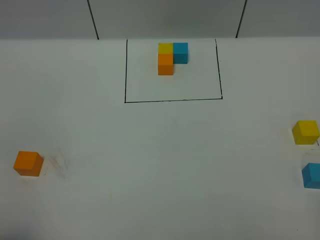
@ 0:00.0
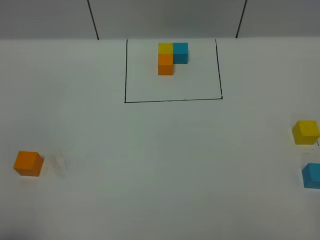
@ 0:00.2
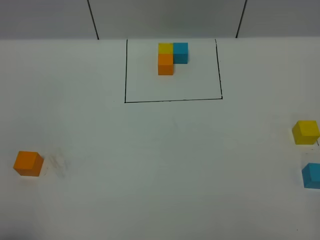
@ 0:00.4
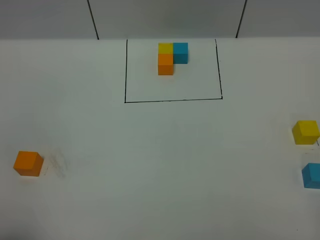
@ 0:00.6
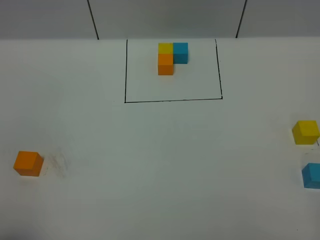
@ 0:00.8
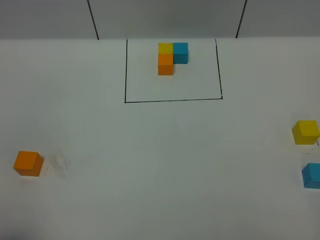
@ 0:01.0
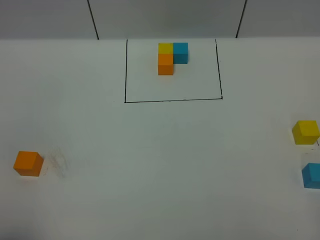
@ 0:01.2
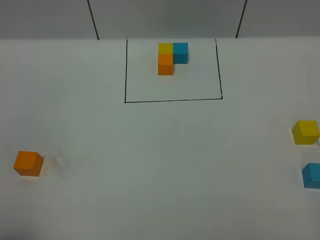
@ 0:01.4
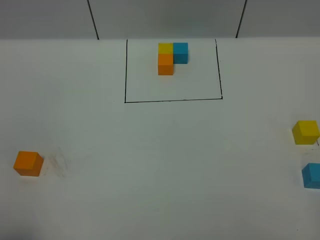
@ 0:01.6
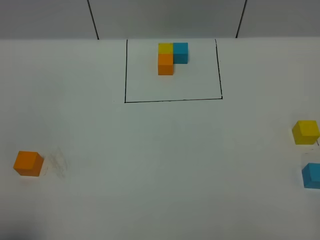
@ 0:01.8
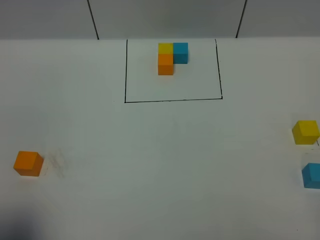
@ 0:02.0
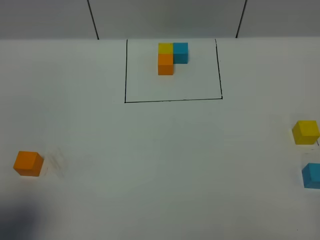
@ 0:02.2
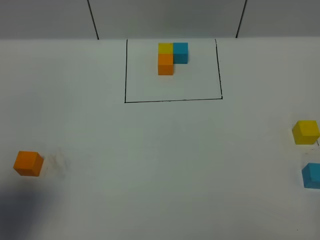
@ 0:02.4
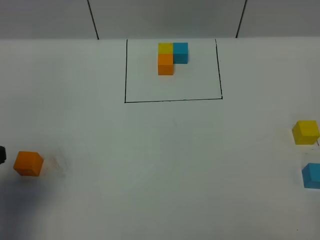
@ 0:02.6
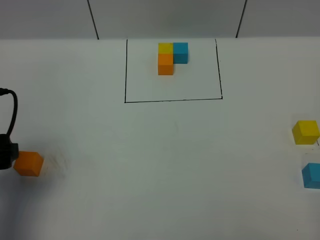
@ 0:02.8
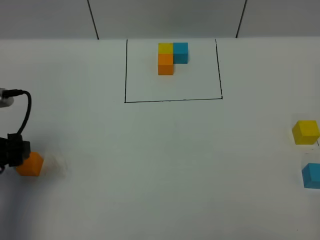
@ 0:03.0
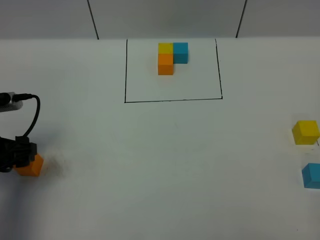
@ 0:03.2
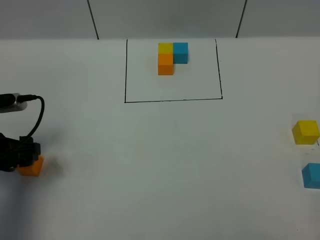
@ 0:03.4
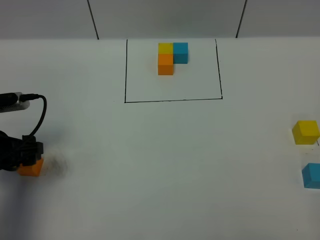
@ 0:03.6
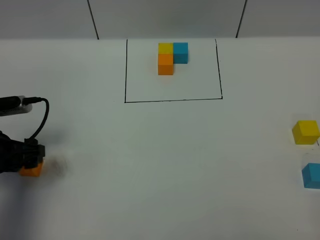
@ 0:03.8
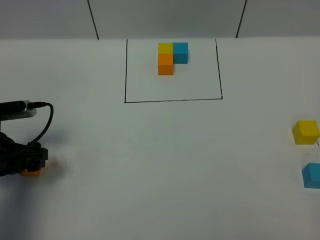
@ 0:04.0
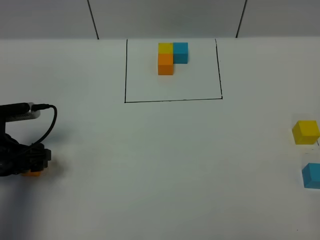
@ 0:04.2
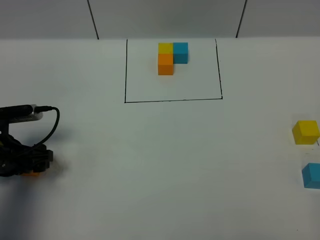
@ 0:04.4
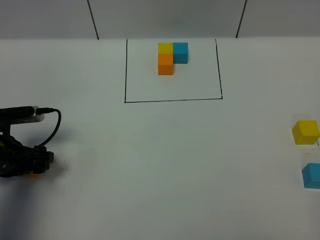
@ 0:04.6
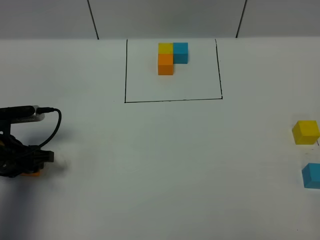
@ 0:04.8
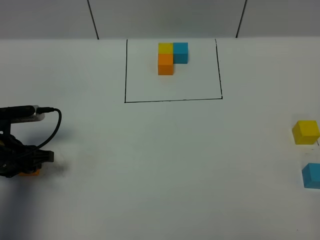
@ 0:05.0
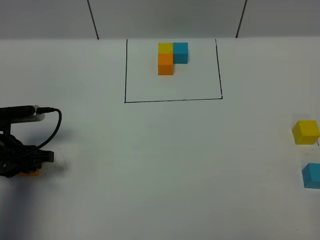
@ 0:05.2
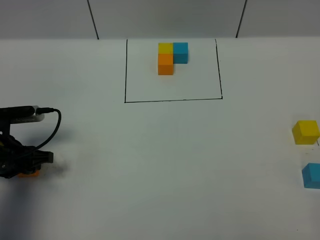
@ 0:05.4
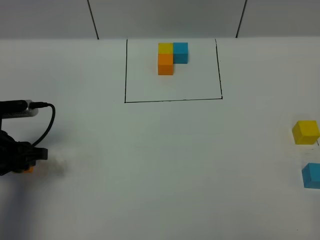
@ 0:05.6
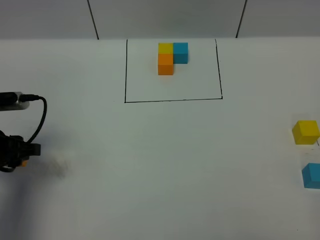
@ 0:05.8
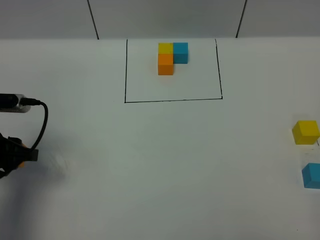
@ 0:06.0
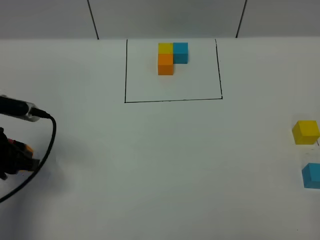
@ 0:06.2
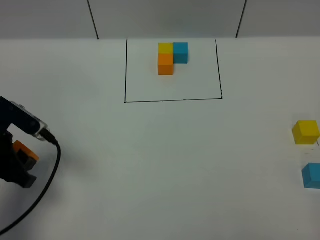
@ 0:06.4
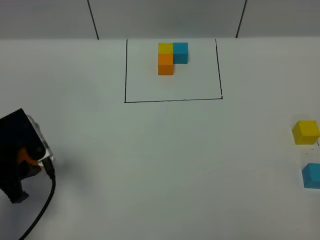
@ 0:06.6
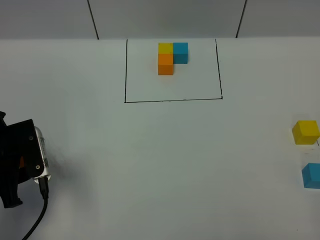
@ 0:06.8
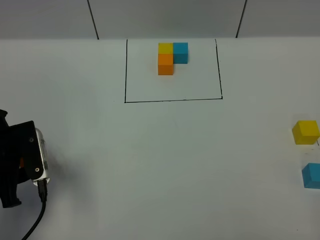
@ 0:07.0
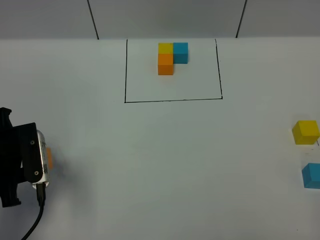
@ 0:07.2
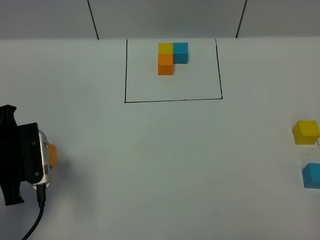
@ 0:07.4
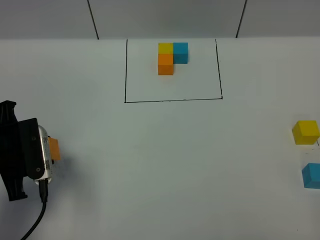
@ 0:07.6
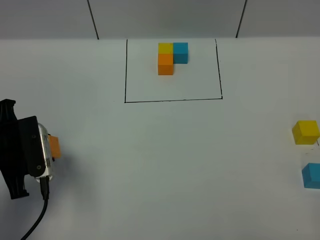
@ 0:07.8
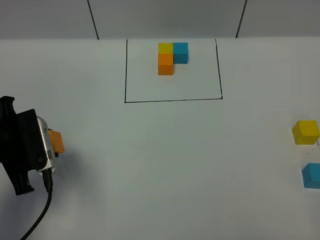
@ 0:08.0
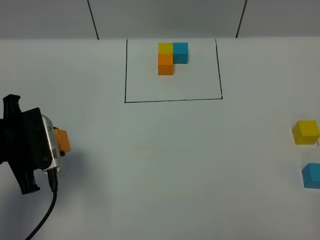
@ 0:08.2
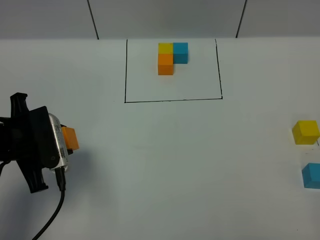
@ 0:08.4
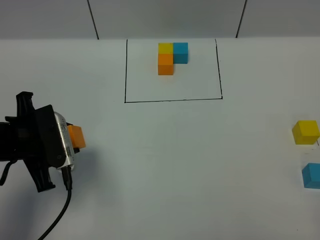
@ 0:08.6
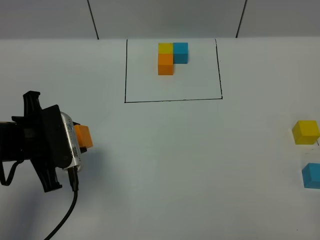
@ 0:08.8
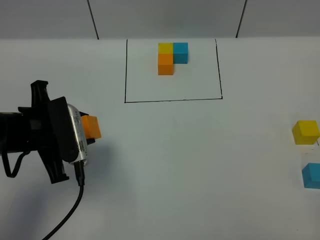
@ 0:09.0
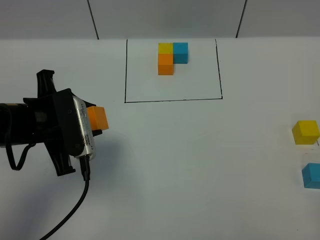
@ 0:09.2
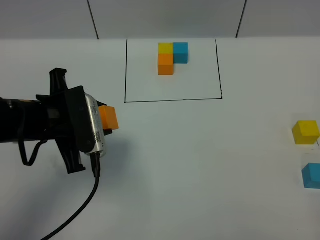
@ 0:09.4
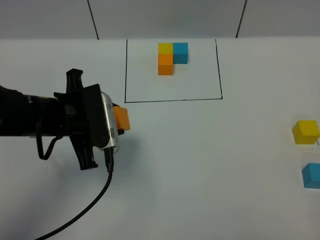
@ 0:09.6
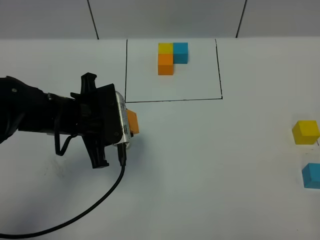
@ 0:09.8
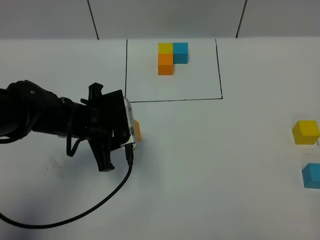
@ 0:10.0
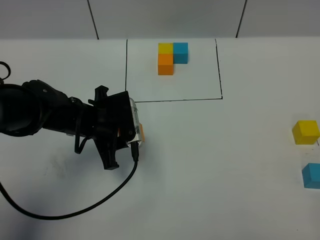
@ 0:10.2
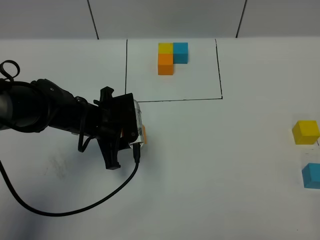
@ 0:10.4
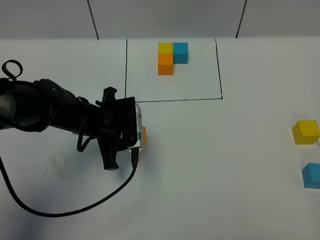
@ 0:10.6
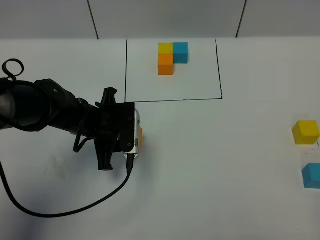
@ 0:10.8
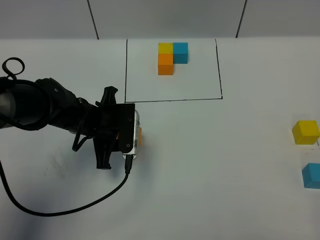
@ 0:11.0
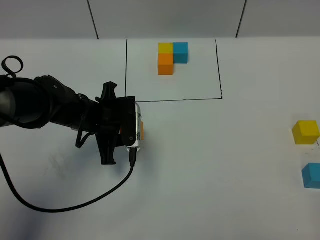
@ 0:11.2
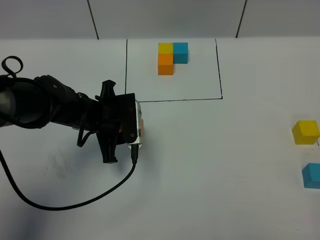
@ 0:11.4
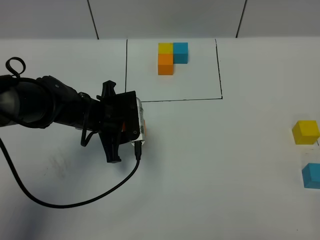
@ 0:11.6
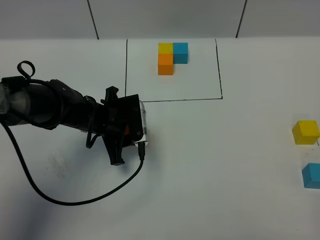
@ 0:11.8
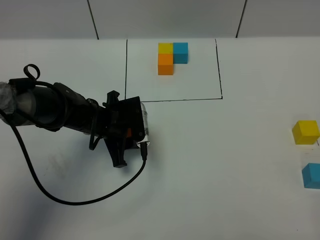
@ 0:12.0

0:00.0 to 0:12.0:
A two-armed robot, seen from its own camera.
Task of the whole recording: According to the building block template in front, assemble the scattered blocks together.
0:01.6 to 0:03.0: The left gripper heads forward and downward, covering approximately 25 cm.
0:03.0 to 0:04.4: The left gripper moves downward, roughly 5 cm.
0:04.4 to 0:06.0: The left gripper moves upward, roughly 5 cm, and closes up.
0:07.6 to 0:09.0: The left gripper shifts about 5 cm to the right.
0:09.0 to 0:10.4: The left gripper moves downward, forward and to the right, roughly 15 cm.
0:10.4 to 0:12.0: There are only small adjustments of the grippers.

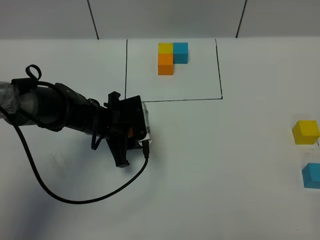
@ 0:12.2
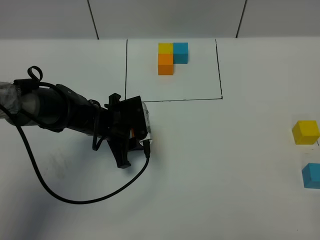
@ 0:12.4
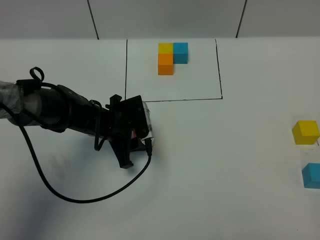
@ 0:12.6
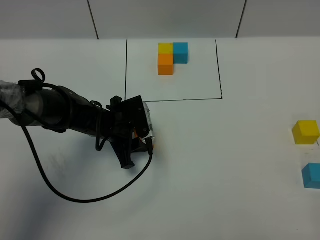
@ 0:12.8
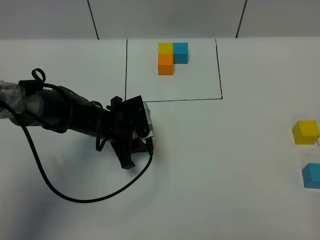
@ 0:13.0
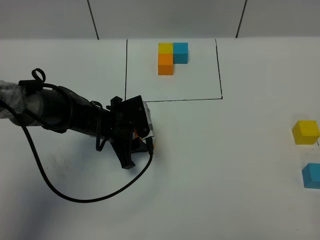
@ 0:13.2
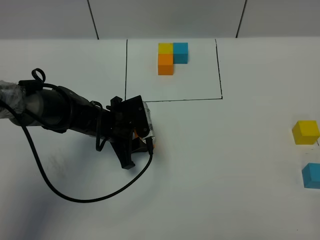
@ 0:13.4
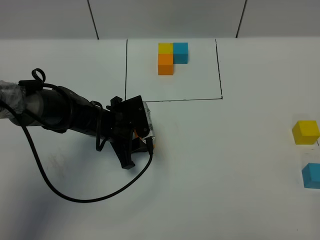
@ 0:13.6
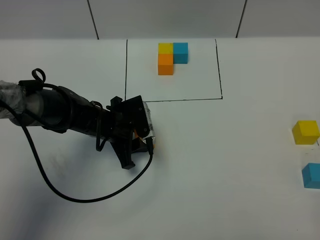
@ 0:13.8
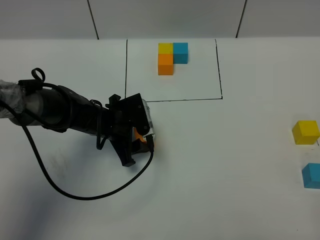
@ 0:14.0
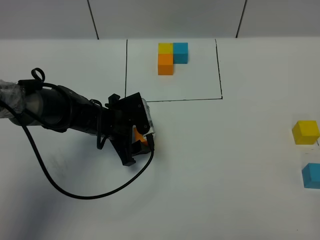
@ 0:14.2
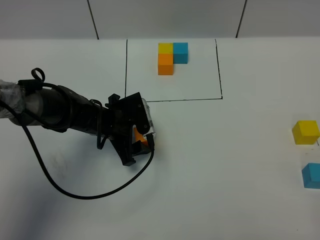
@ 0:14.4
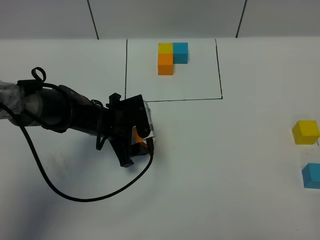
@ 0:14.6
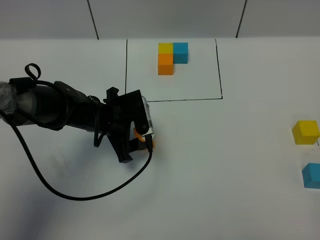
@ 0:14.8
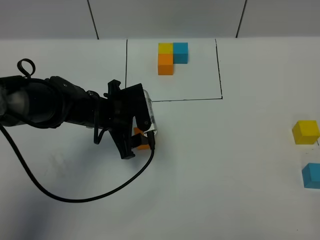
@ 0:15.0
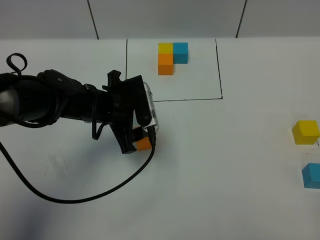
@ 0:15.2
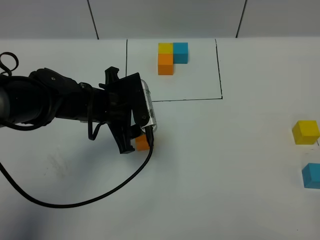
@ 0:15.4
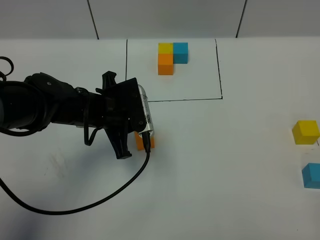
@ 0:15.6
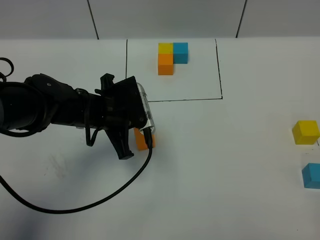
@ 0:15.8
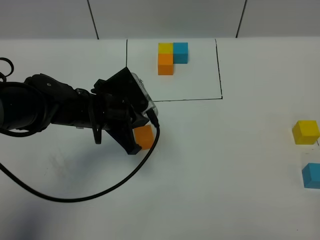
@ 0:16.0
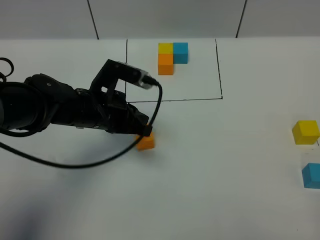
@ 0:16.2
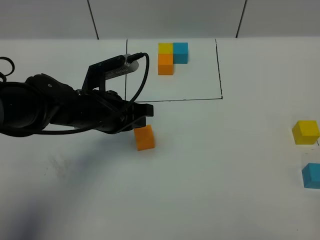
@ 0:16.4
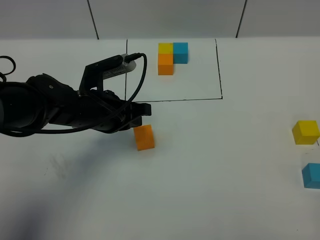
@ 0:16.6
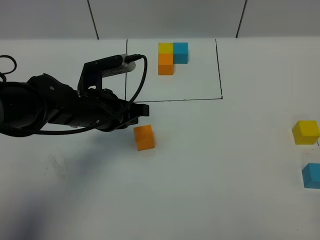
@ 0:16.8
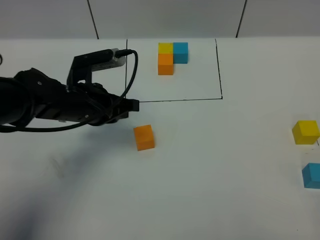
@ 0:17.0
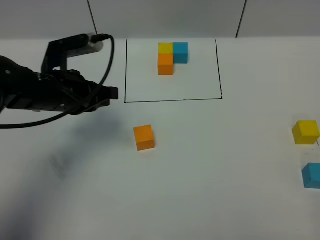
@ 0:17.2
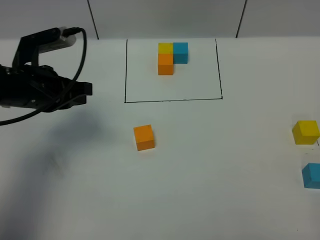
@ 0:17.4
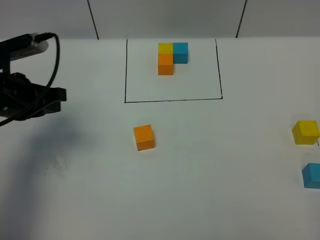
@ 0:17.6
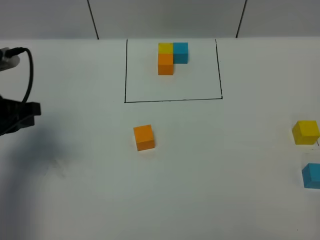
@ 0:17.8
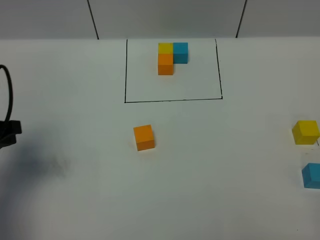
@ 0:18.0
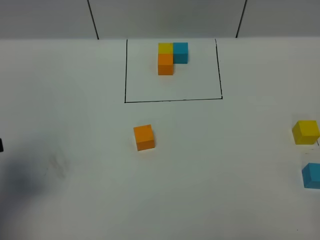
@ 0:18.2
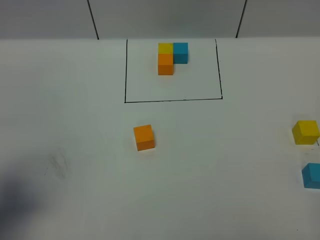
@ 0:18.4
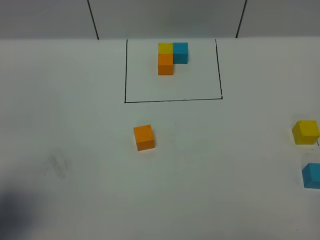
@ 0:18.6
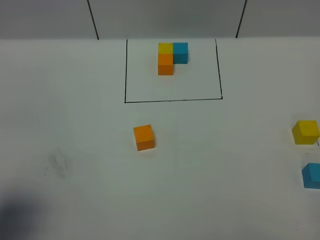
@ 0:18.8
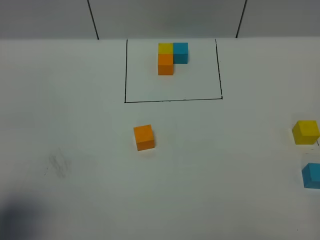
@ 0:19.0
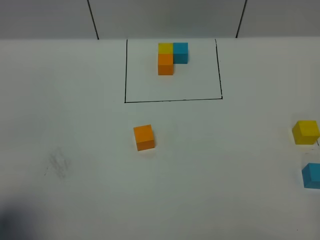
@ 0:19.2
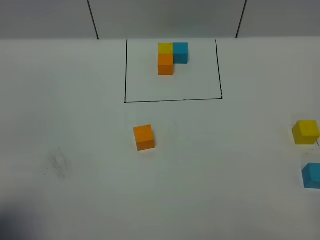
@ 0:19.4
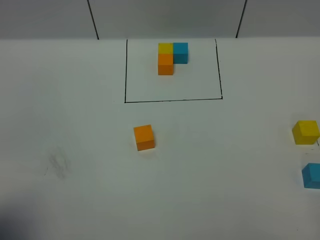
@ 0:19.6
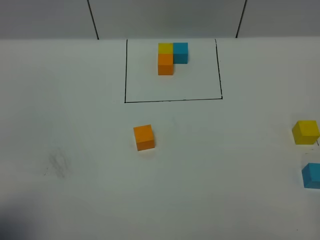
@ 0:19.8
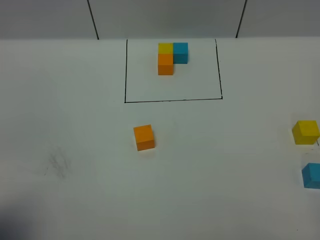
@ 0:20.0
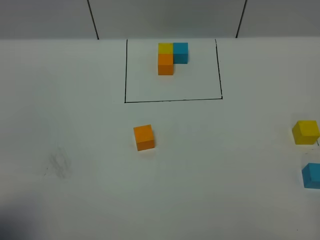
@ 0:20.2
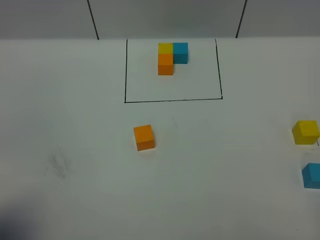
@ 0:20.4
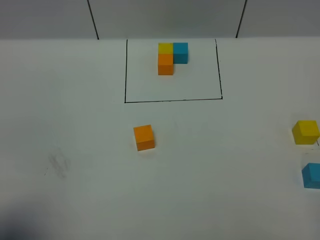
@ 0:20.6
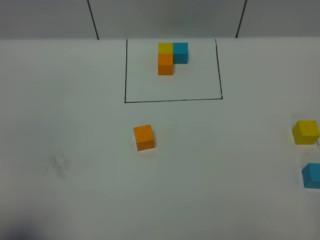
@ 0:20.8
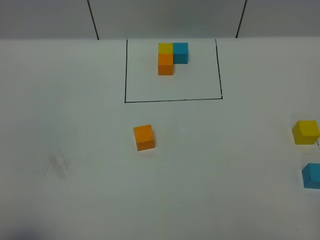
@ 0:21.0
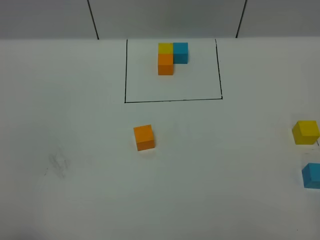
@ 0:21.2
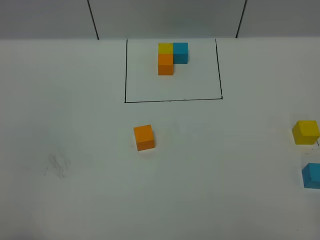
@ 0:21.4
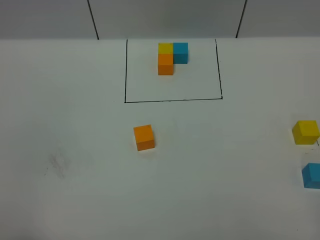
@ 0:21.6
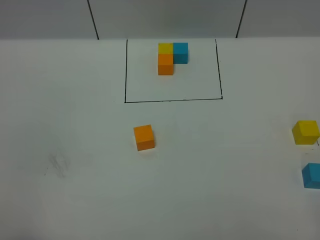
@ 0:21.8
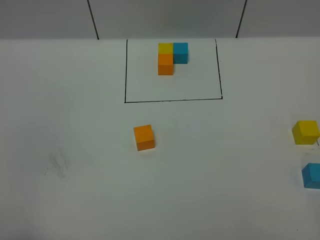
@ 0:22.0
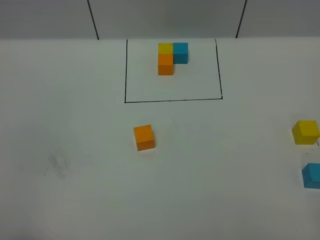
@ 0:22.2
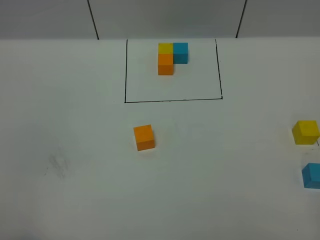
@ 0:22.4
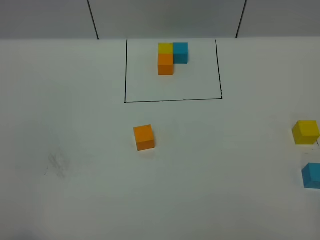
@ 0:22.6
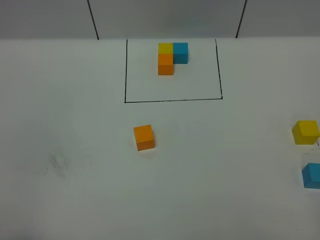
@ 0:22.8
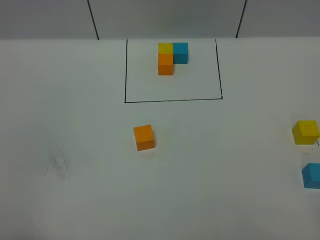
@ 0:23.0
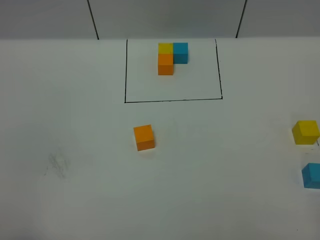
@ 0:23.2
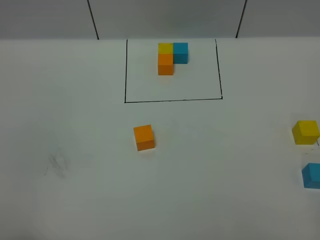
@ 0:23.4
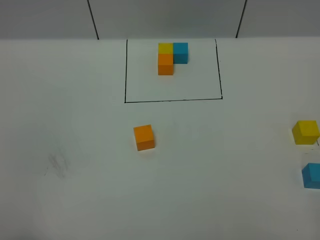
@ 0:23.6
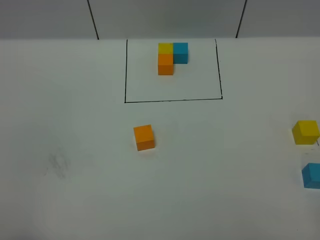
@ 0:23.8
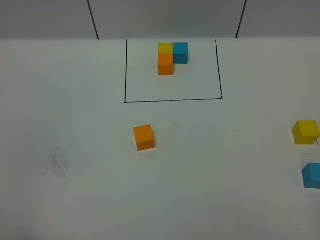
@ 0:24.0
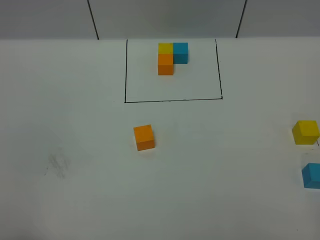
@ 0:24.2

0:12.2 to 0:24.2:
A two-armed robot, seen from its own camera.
Task of the whole recording: According to the building block template in front, assemble the scattered blocks together.
Step, 0:12.2 to 0:17.0: Put the orange cube in the center of the table.
0:12.2 to 0:13.8: There are only small adjustments of the grippers.
0:13.8 to 0:15.2: The left gripper travels upward by approximately 10 cm.
0:15.2 to 0:16.6: The left gripper closes its fingers.
0:16.6 to 0:18.2: The left gripper travels to the left and backward by approximately 25 cm.
0:18.2 to 0:19.8: The left gripper moves backward, roughly 10 cm.
0:19.8 to 0:21.2: The left gripper moves backward, approximately 5 cm.
0:21.2 to 0:24.2: Neither gripper changes place.
